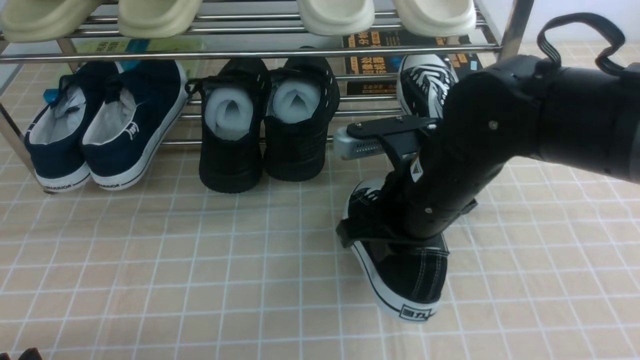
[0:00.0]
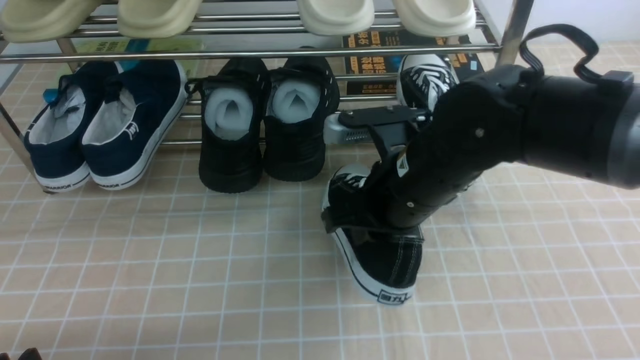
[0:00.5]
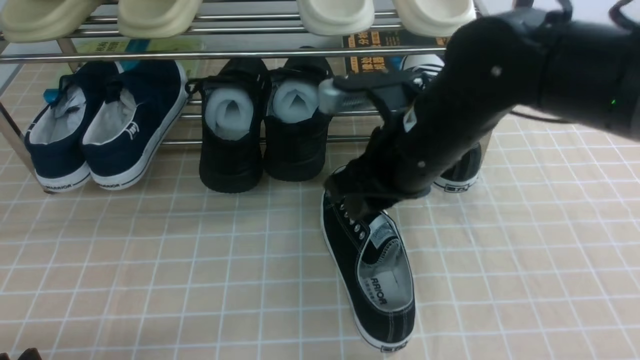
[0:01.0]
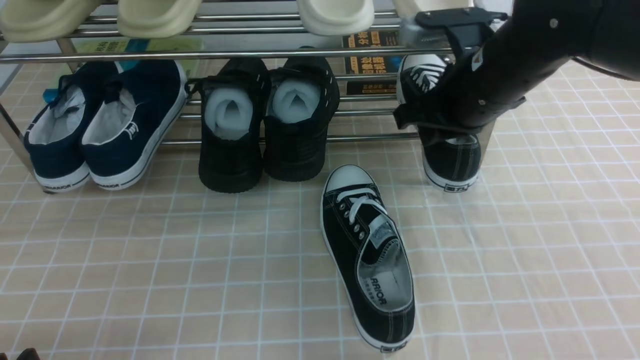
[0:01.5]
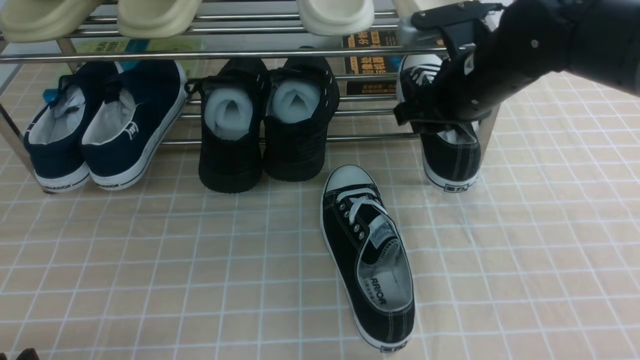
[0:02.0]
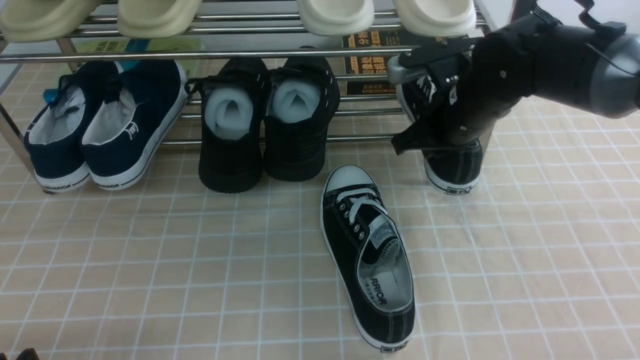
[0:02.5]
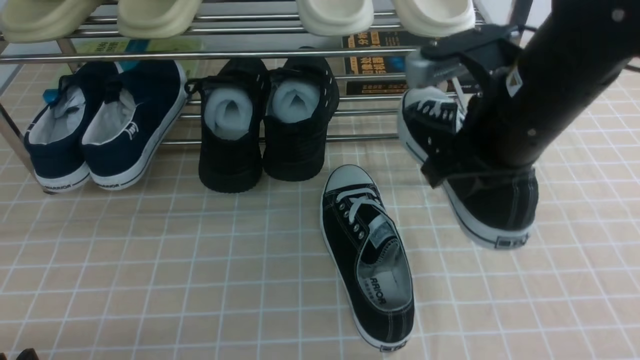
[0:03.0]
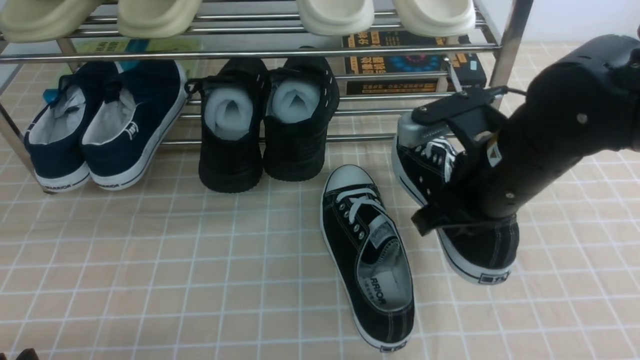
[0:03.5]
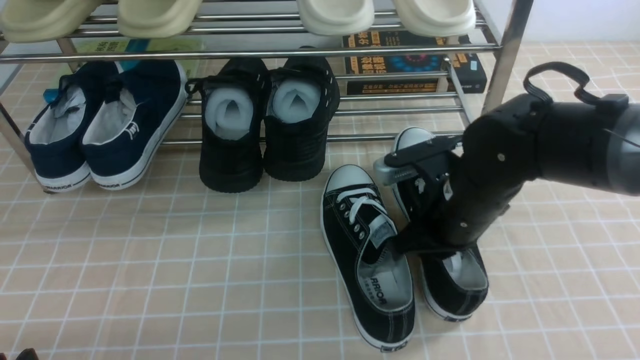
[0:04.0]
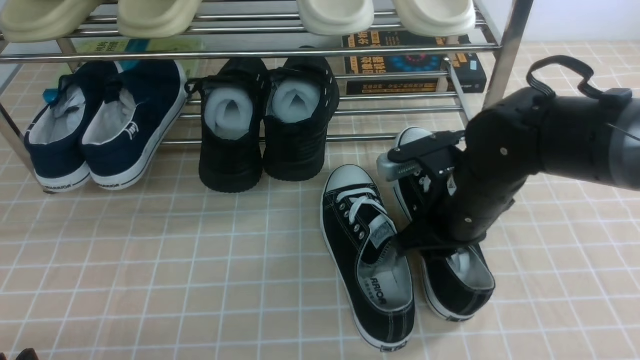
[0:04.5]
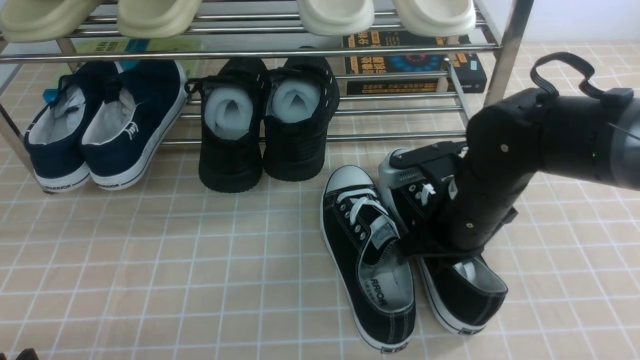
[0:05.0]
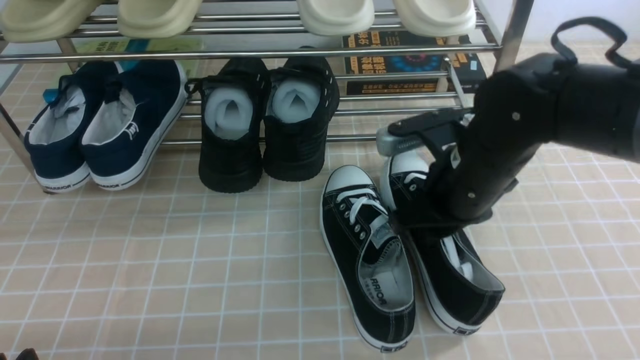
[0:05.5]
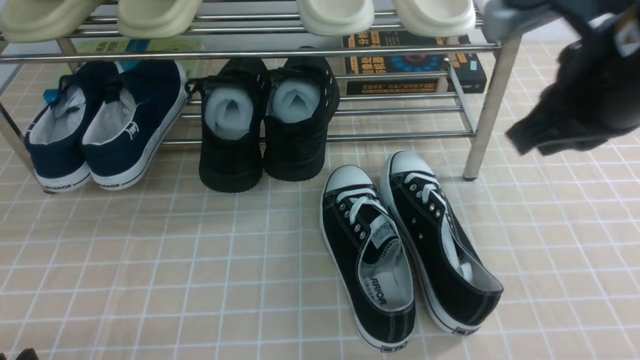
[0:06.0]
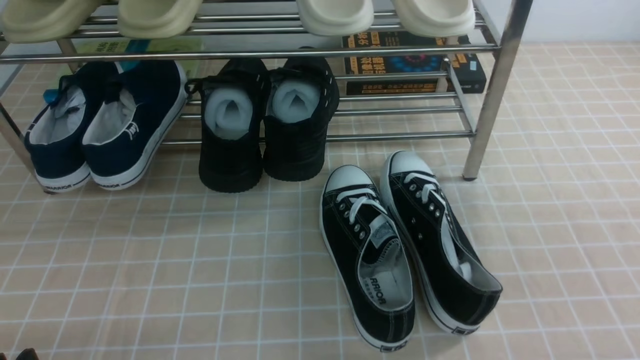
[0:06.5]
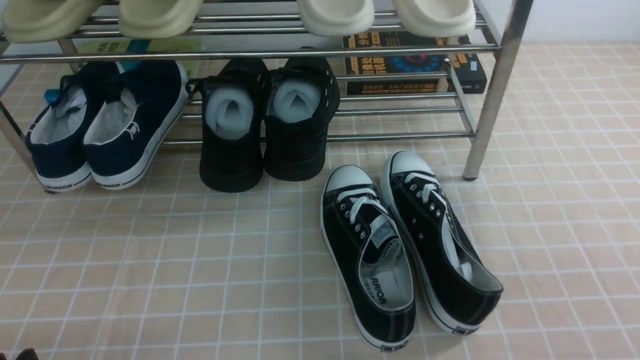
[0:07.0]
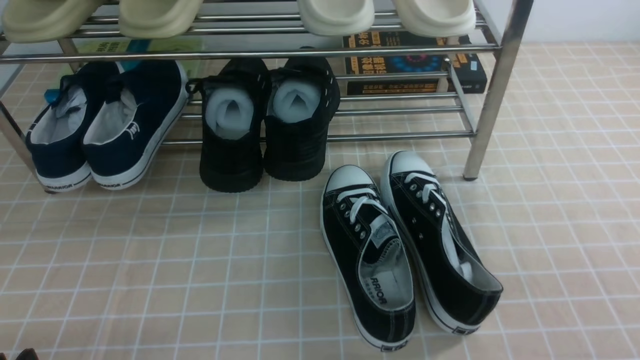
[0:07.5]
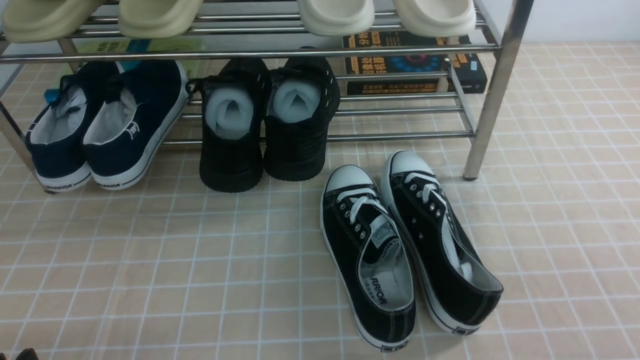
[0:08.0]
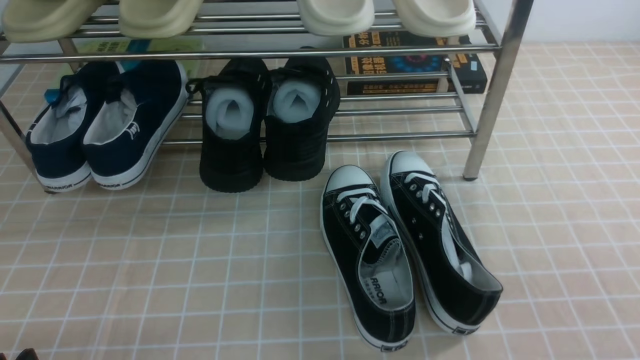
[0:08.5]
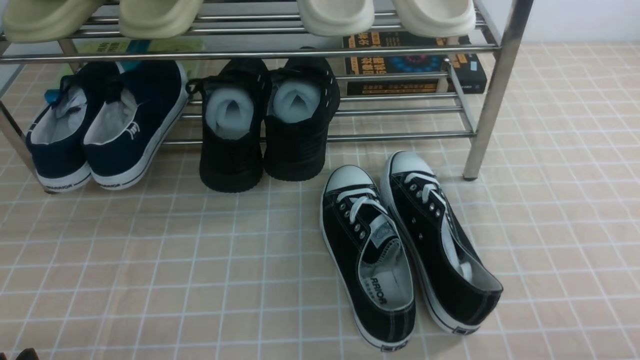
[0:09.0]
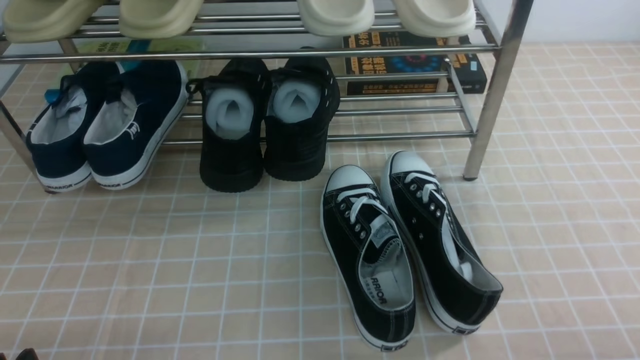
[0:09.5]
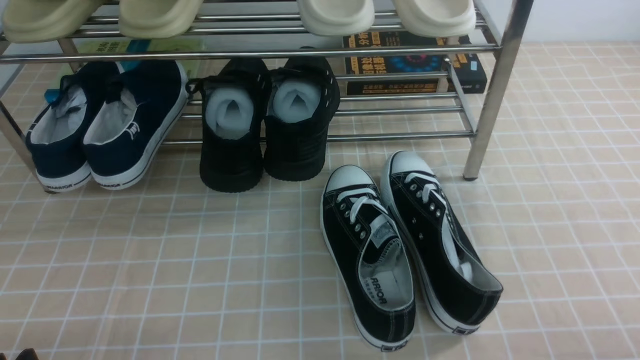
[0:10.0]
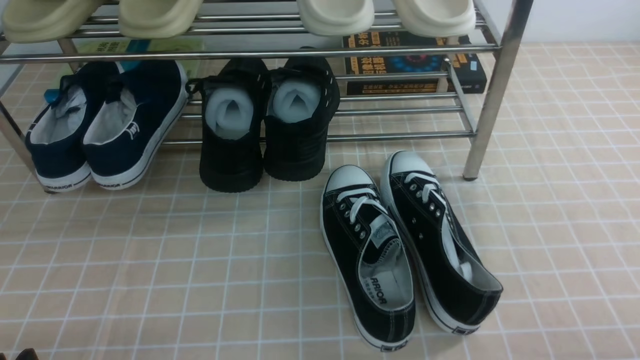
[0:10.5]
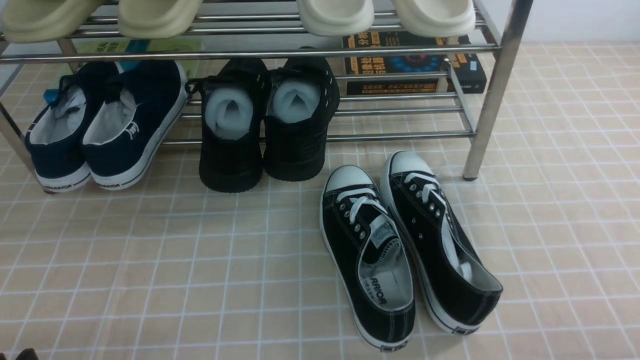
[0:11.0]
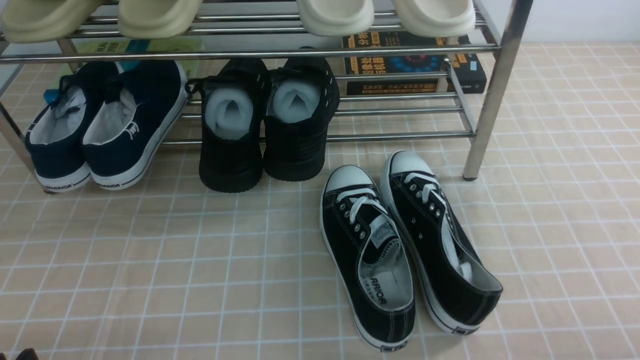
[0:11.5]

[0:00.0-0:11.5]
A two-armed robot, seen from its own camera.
Step, 0:01.0 to 0:02.0: use the right arm to clamp a shoe on the right side of the shoe rack.
Step, 0:02.5 to 0:05.5: use the right arm to take out the clamped shoe from the shoe rack and put it down.
0:00.0 to 0:02.0: The right gripper shifts some 15 cm forward and to the right, and opens.
0:02.0 to 0:04.0: The right gripper goes approximately 10 cm backward and downward, and closes up.
0:04.0 to 0:06.0: The right gripper travels upward and backward by roughly 20 cm, and opens and closes again.
0:06.0 to 0:07.5: The right gripper is displaced backward, to the right and downward by approximately 25 cm.
0:09.5 to 0:11.5: The two grippers keep their place.

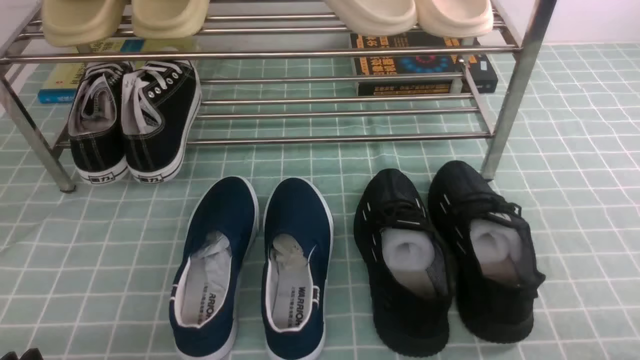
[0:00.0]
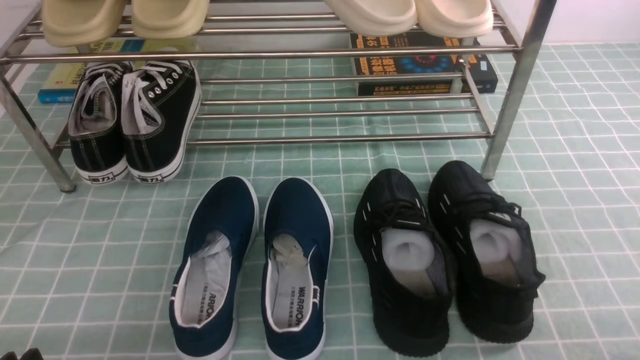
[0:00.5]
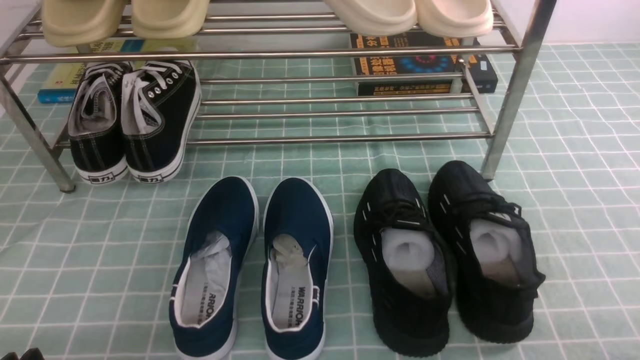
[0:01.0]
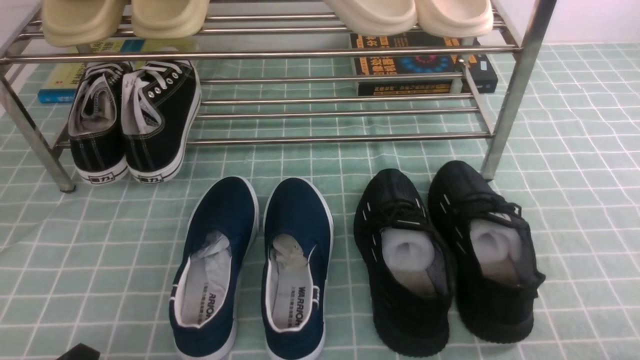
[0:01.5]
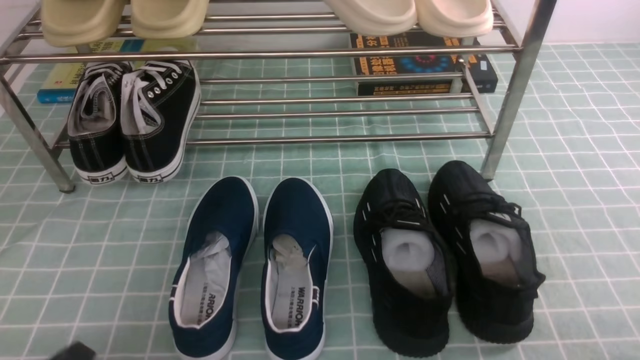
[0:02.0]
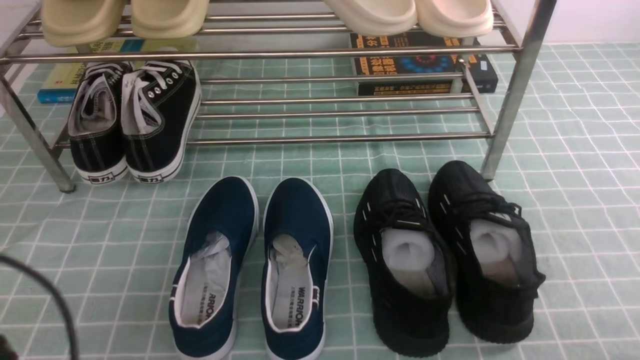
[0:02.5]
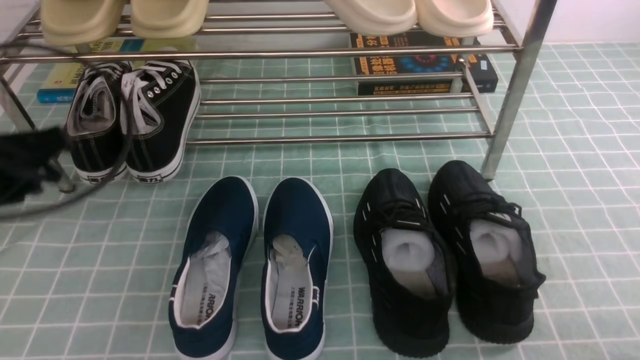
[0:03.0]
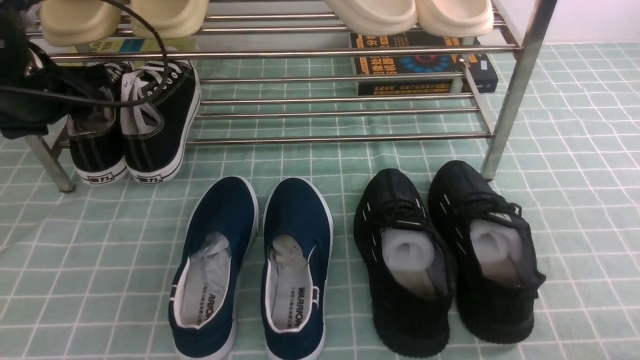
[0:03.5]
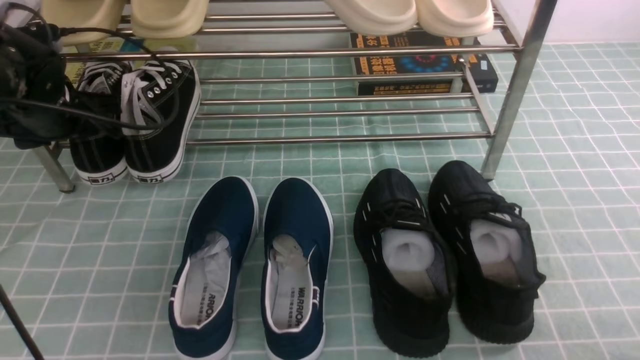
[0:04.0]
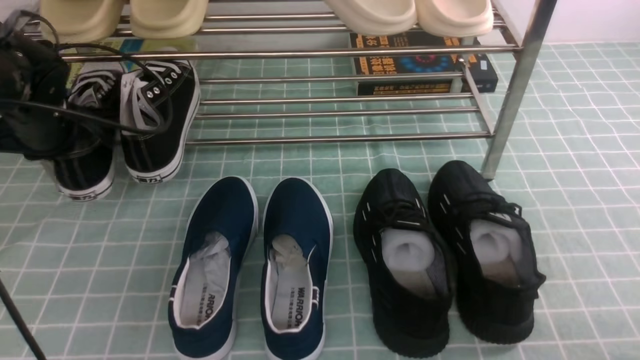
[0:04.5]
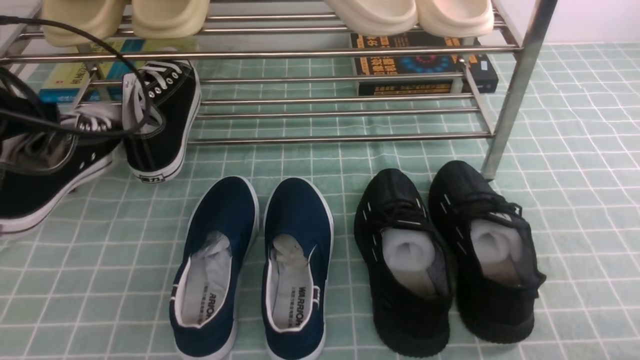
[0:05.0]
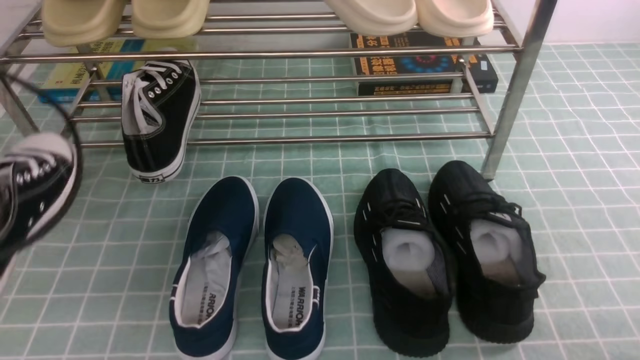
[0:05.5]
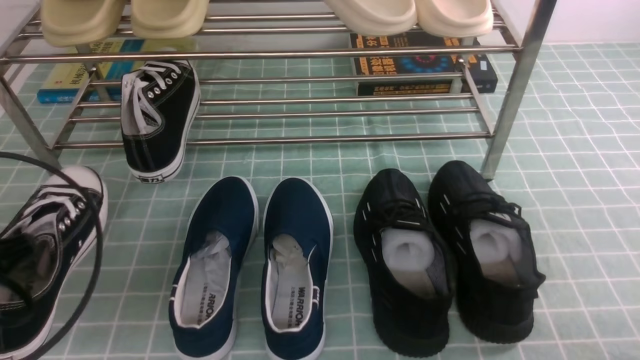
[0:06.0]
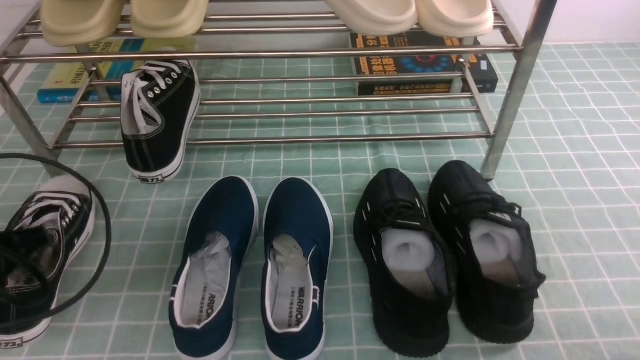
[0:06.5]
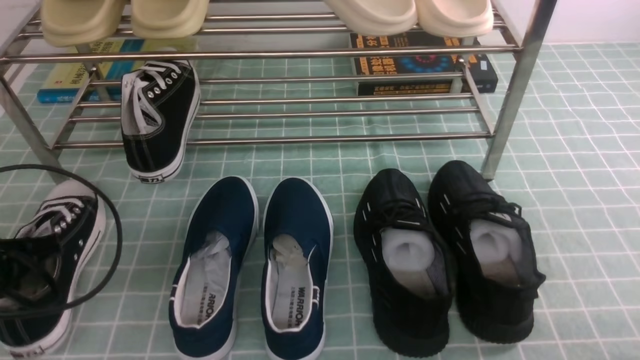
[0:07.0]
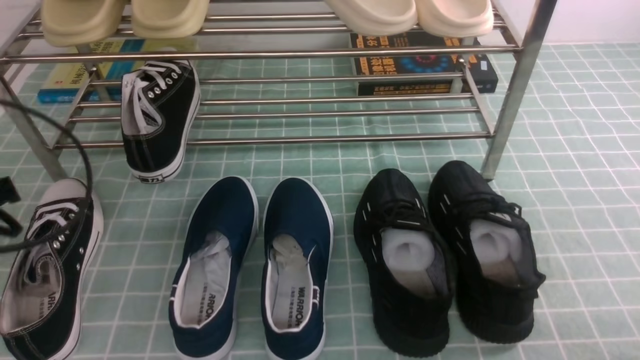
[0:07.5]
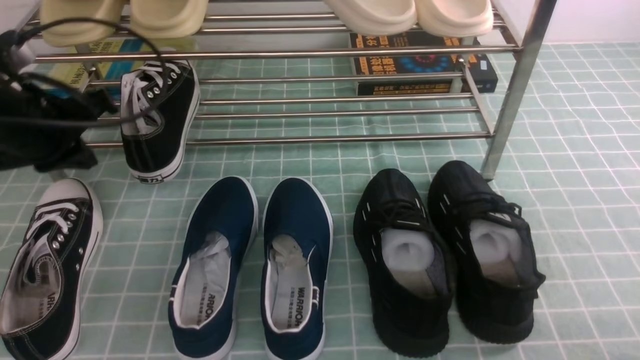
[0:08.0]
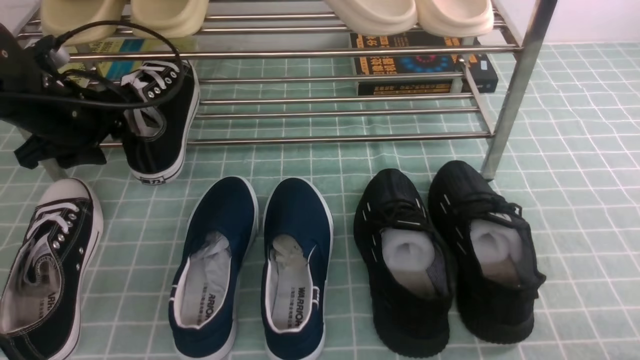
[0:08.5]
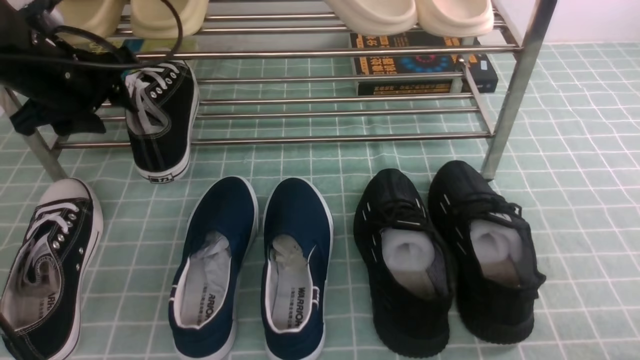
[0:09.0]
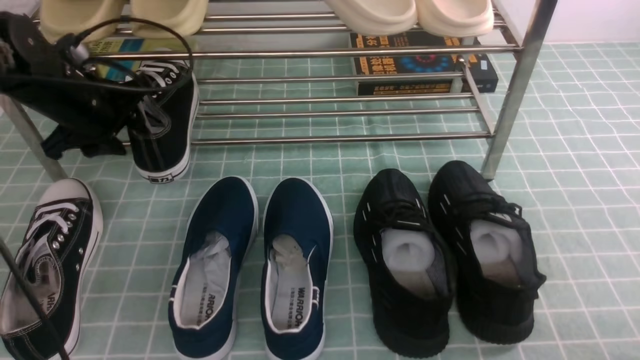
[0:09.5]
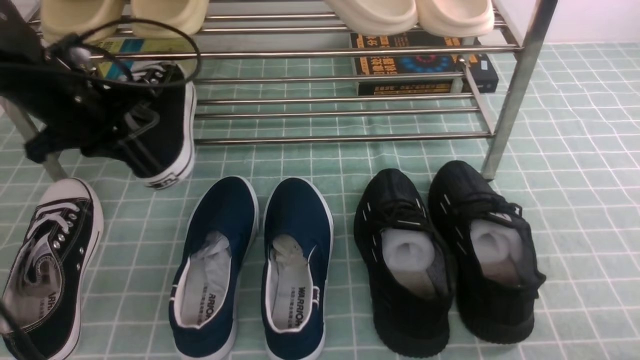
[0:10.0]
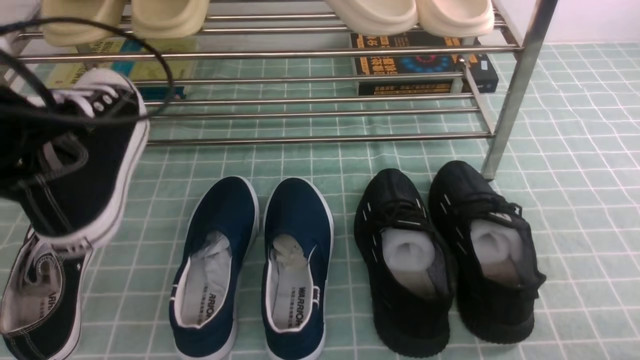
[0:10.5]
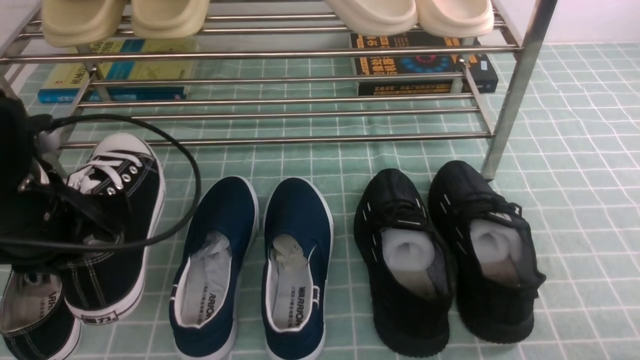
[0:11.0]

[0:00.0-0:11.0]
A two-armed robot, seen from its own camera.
Step, 0:00.0 to 0:04.0: use the left arm to clamp a shoe on the left side of the shoe rack.
Step, 0:04.5 to 0:07.0: Use your left arm to remove the clamped shoe from the shoe rack and put it down.
Step, 0:07.5 to 0:09.5: use the left arm to clamp a shoe on the left side of the shoe rack.
0:02.0 to 0:03.5: The left gripper shifts about 30 cm forward, and opens up.
0:03.5 to 0:05.5: The left gripper goes some 20 cm backward, and closes up.
0:05.5 to 0:07.5: The left gripper is displaced downward and forward by approximately 10 cm, and opens up.
0:07.5 to 0:09.0: The left gripper goes approximately 15 cm forward, and opens up.
0:09.0 to 0:11.0: The left gripper goes about 15 cm backward, and closes its fingers.
